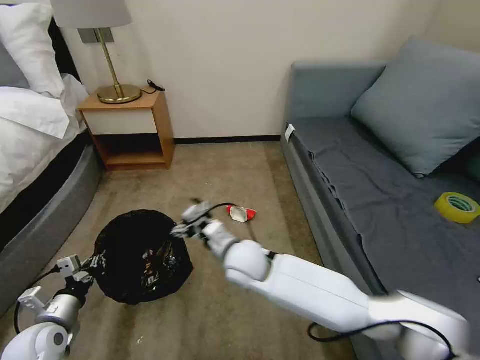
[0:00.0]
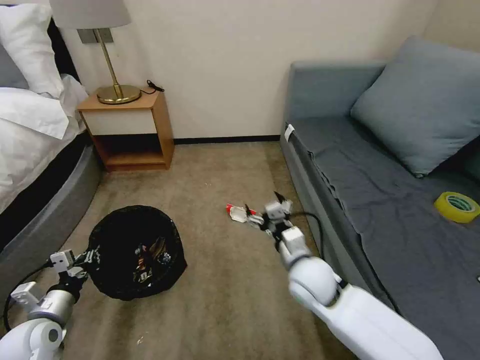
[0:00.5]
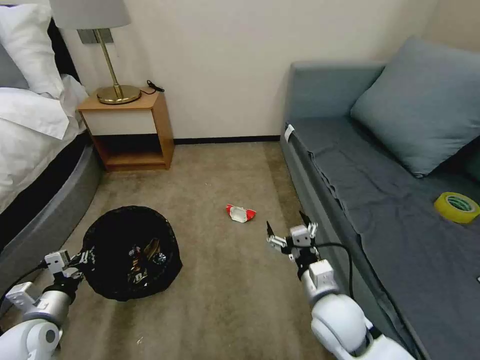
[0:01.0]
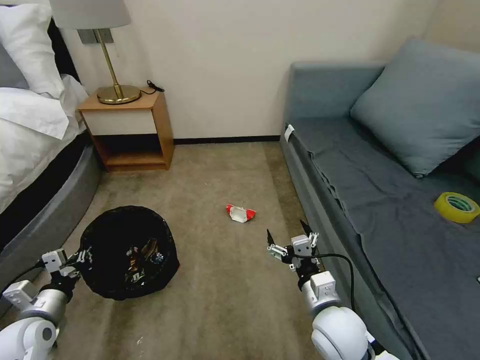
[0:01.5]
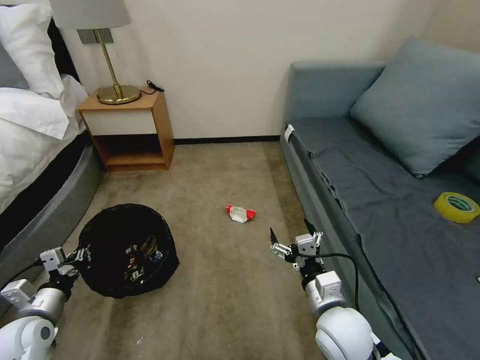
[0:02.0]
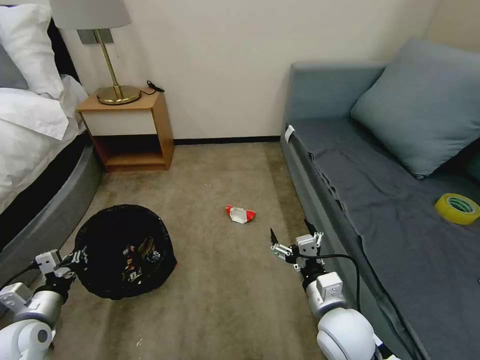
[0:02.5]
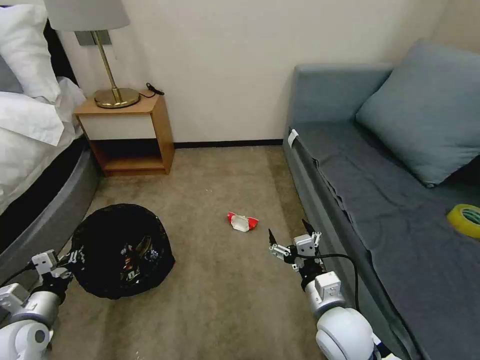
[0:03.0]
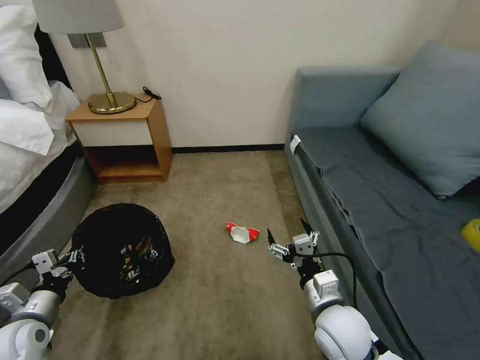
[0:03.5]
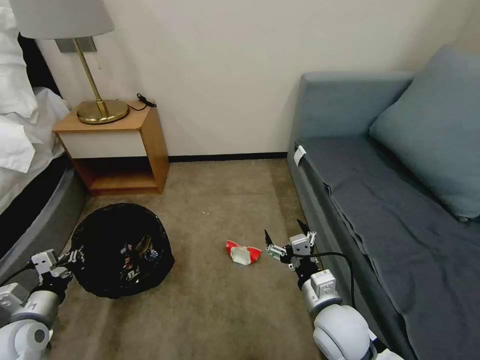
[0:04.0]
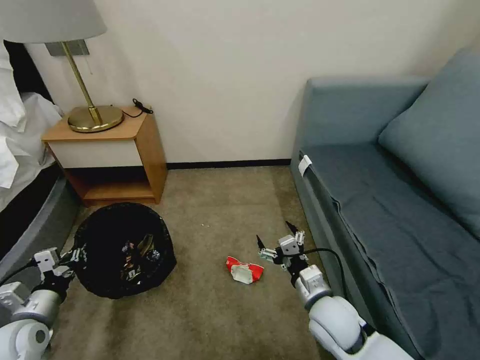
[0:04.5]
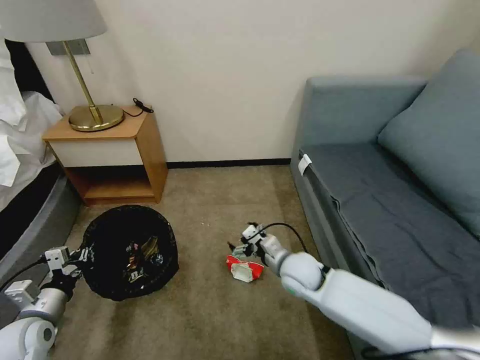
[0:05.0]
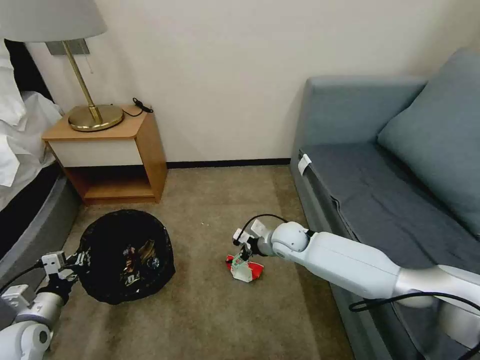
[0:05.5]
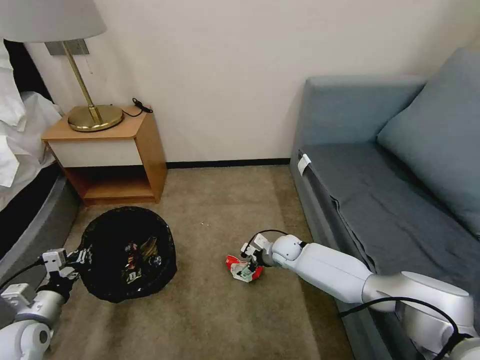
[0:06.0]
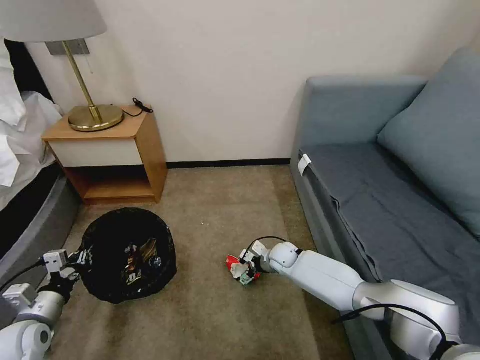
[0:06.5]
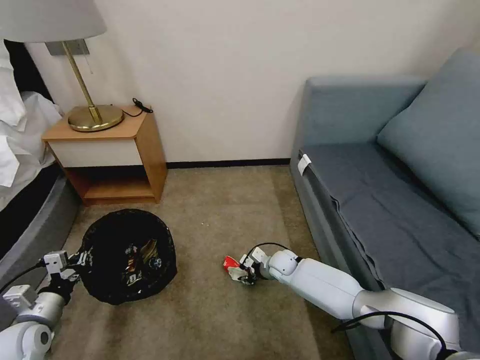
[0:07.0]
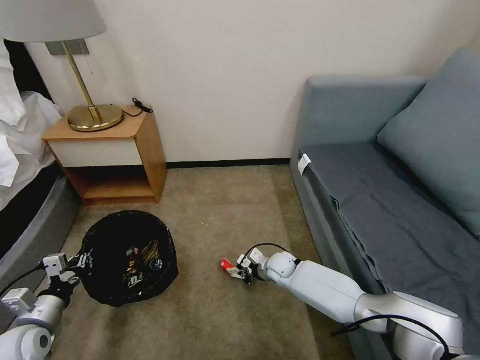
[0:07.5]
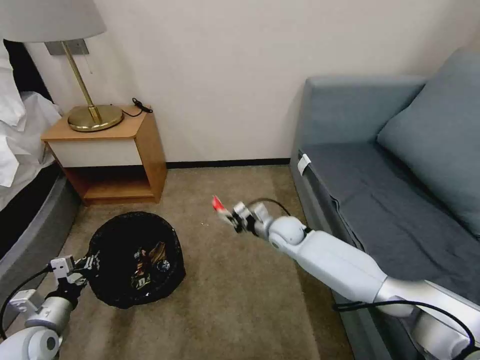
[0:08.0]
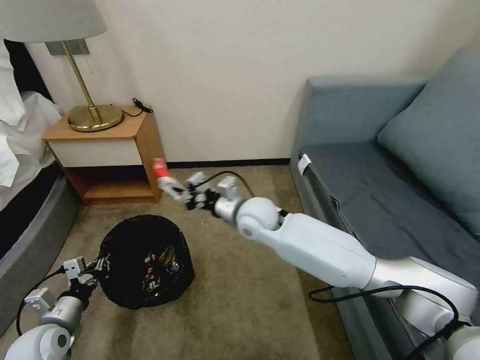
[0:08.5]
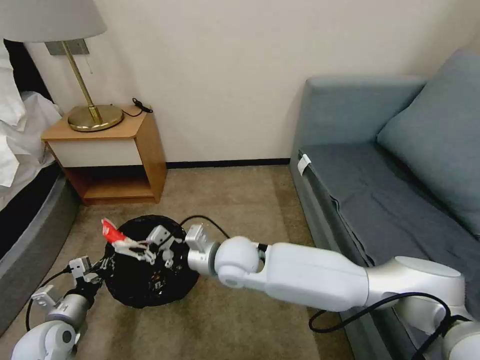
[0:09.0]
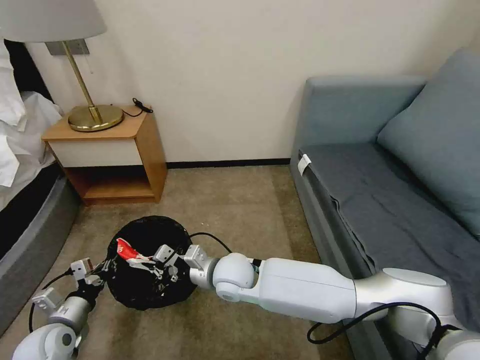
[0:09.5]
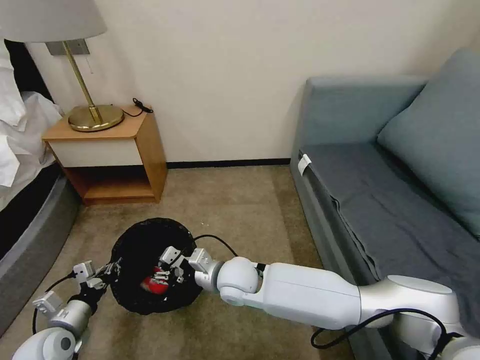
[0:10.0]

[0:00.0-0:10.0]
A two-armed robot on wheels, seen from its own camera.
Task of the whole recording: Pick up the trash bin, then pick up the garbage on the floor and place it into the trash bin.
0:00.0 to 0:02.0: The right gripper travels to the right and backward by some 25 cm.
0:04.0 to 0:06.0: The right gripper heads forward and downward, covering some 30 cm.
0:06.0 to 0:08.0: The right gripper moves upward, about 10 cm, and closes its fingers.
0:08.0 to 0:10.0: The right gripper travels backward and to the left by roughly 20 cm, and opens.

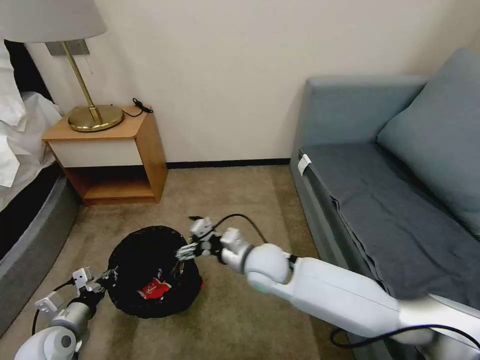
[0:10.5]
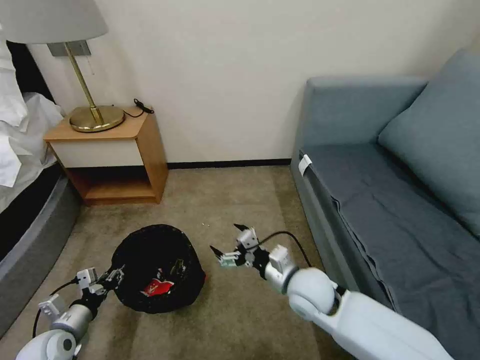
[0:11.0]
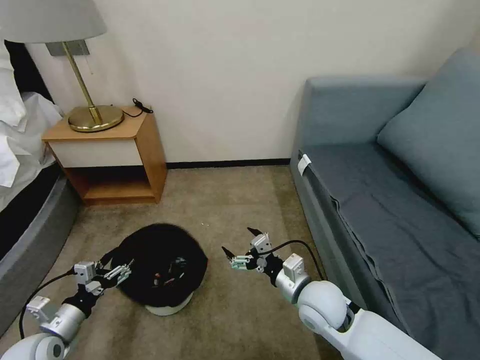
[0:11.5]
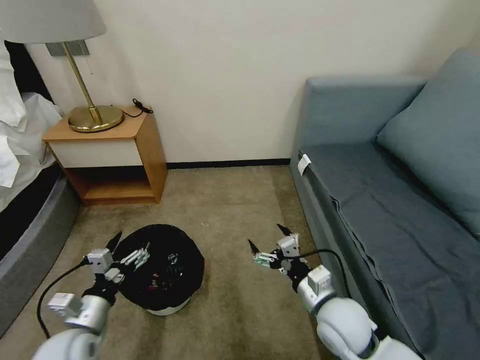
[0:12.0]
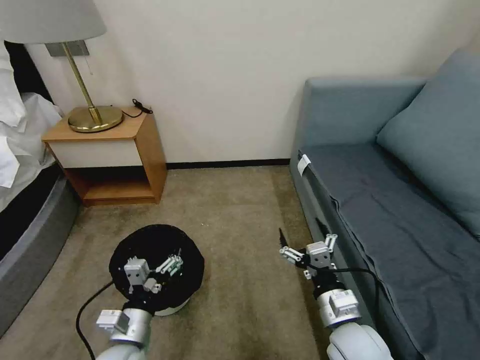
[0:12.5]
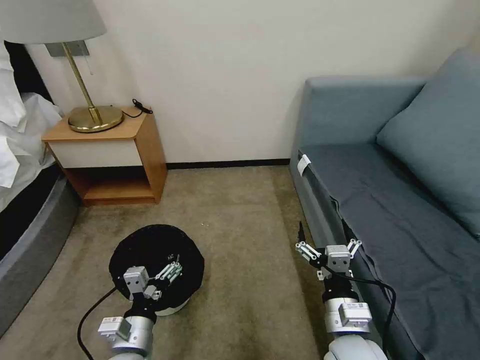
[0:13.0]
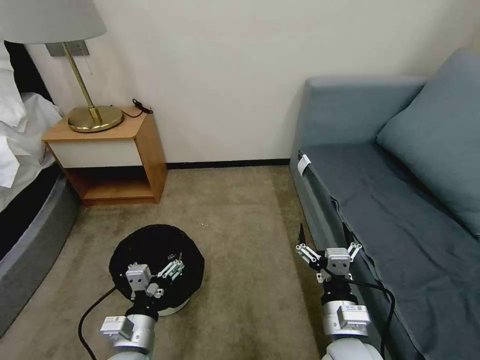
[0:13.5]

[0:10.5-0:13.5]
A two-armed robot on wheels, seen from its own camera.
Task of the whole recording: Pick up the trash bin, then pick up the garbage on the floor and place it into the trash bin.
0:10.5 to 0:12.0: The left gripper is displaced to the right and upward by about 10 cm, and opens its fingers, while the right gripper travels to the right and backward by about 15 cm.
0:12.0 to 0:13.5: The right gripper shifts about 10 cm backward, while the left gripper travels to the right by about 15 cm.

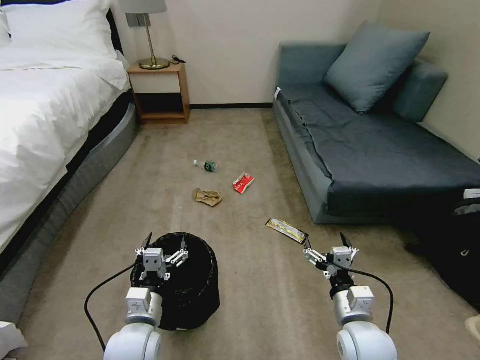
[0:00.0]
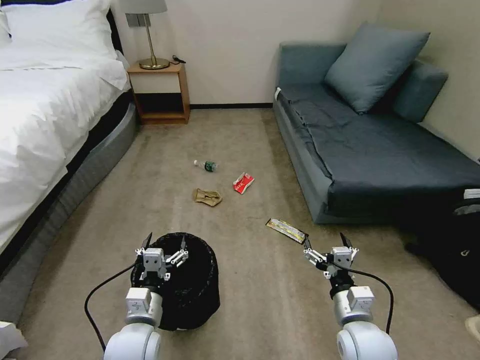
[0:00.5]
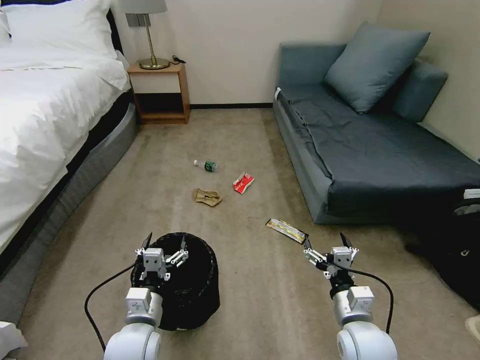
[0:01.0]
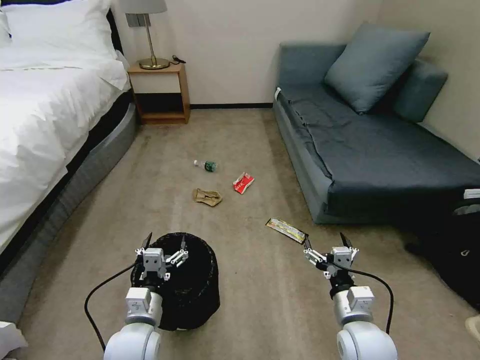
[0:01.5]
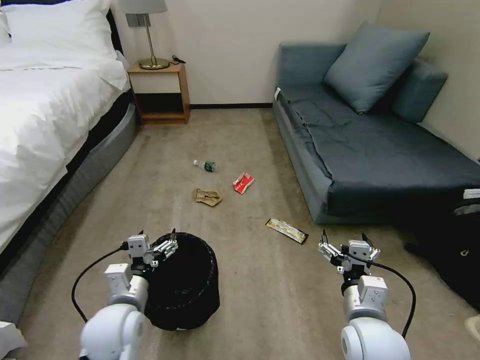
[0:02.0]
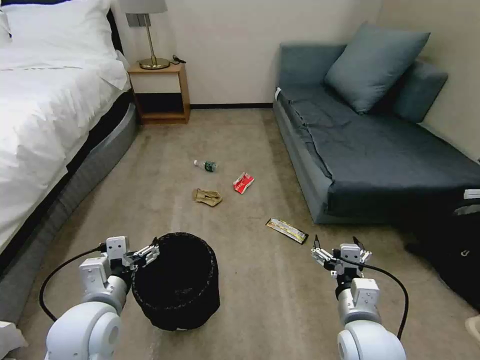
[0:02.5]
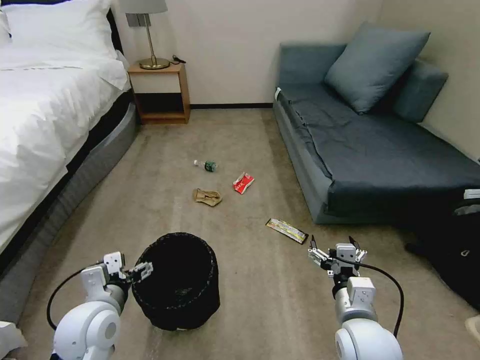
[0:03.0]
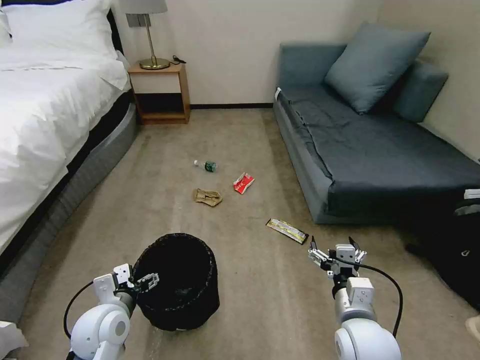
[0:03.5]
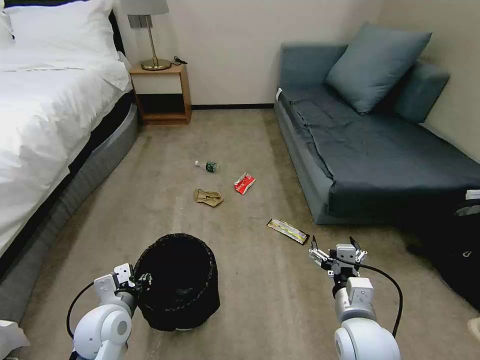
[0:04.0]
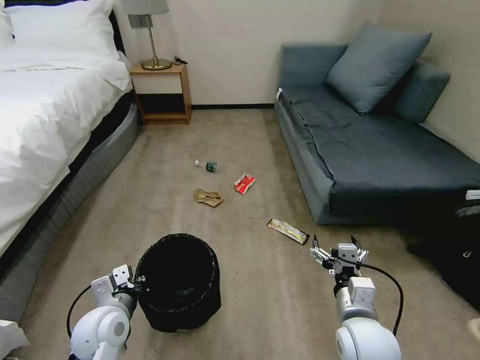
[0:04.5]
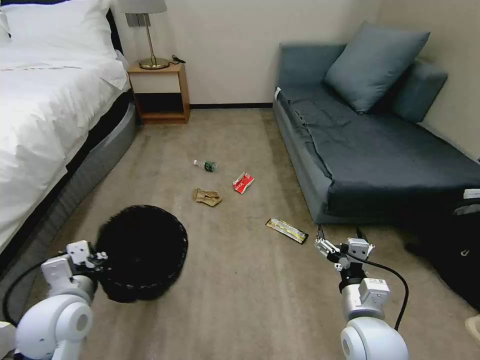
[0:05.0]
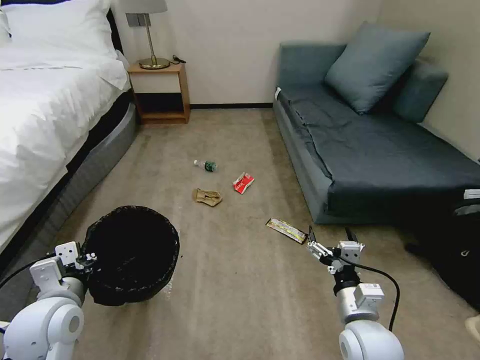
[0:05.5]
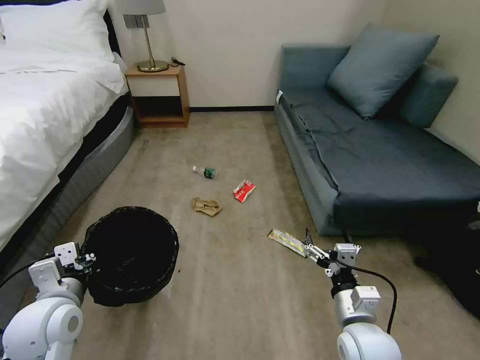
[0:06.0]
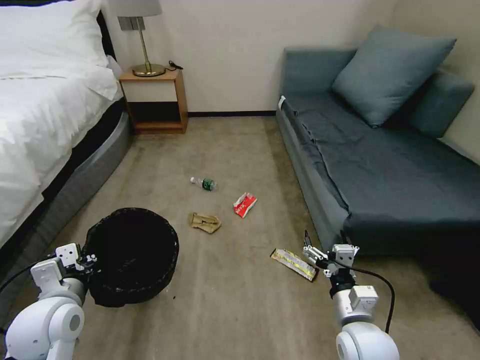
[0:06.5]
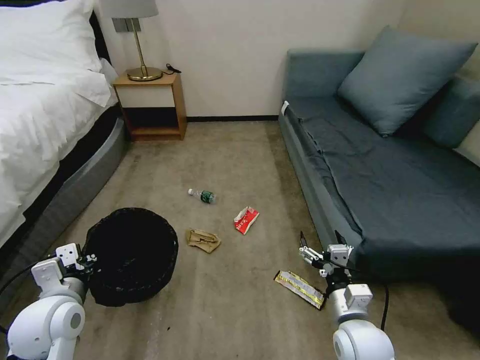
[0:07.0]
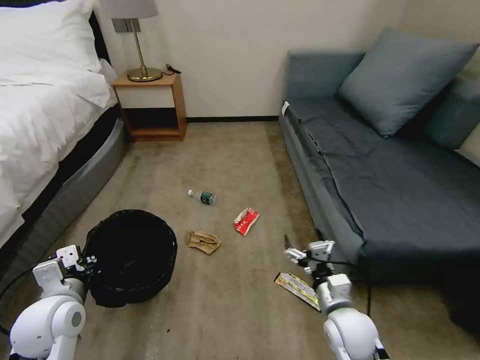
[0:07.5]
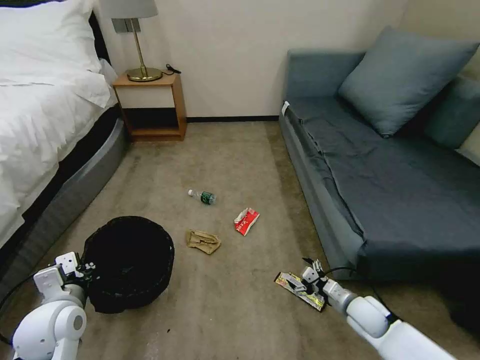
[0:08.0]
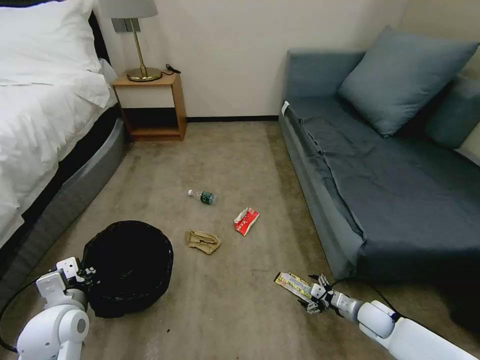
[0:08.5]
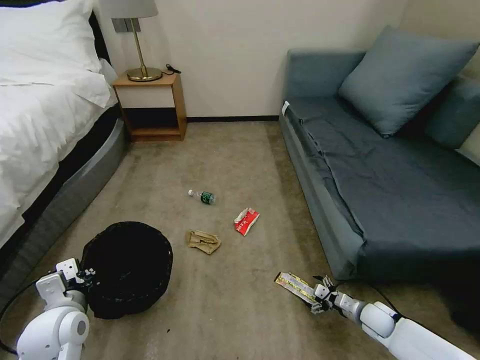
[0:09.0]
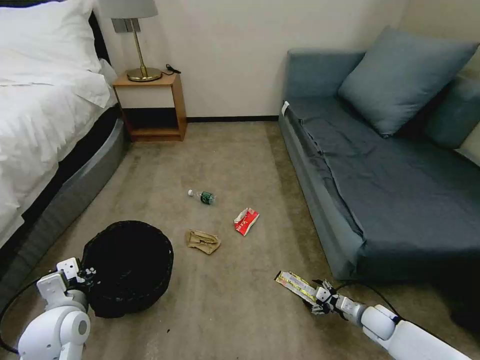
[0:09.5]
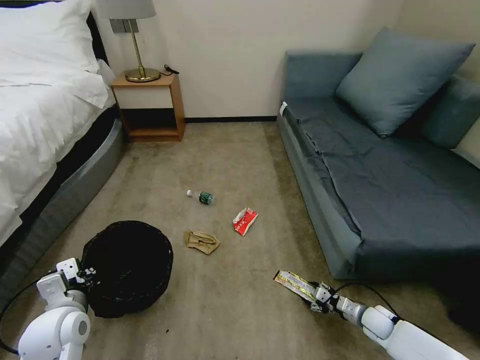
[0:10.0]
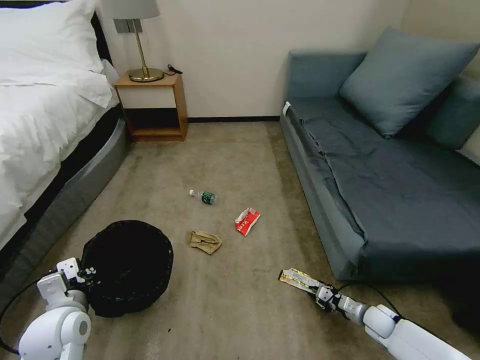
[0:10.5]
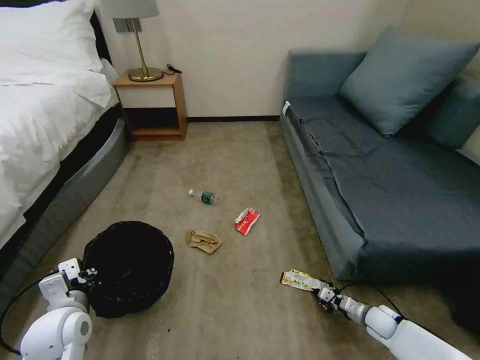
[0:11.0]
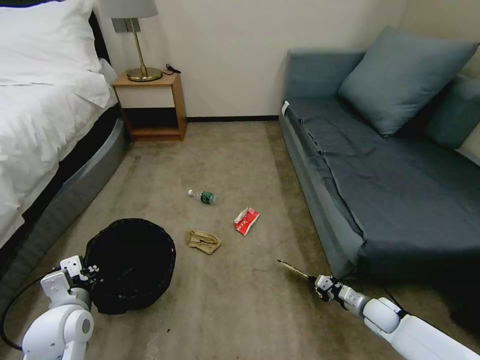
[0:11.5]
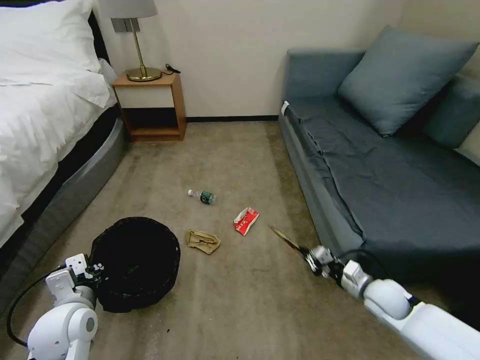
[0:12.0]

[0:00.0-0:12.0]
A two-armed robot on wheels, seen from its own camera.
Task of the whole recording: Pick up the trash bin, then pick up the garbage on the floor and place it into the trash bin.
0:02.0 to 0:04.0: The left gripper shifts by some 5 cm, and closes its fingers.
0:04.0 to 0:06.0: The left gripper travels upward and to the left by roughly 10 cm, and closes up.
0:06.0 to 0:08.0: The right gripper goes approximately 20 cm downward, to the right and forward.
0:08.0 to 0:10.0: The right gripper heads downward and to the right, covering some 10 cm, and closes.
0:10.0 to 0:12.0: The right gripper goes approximately 15 cm upward, and closes.
